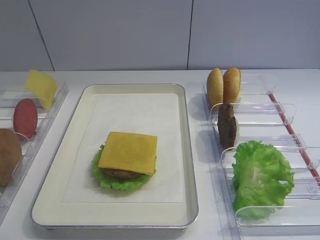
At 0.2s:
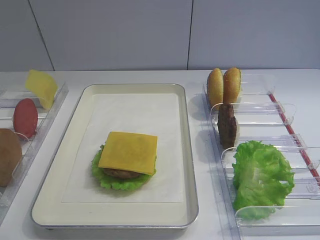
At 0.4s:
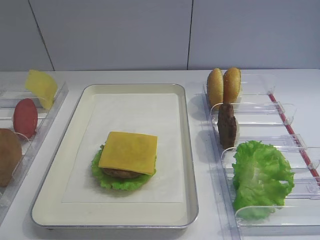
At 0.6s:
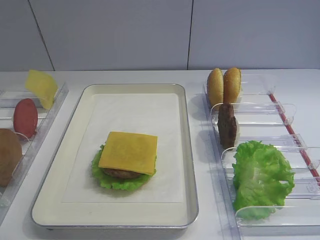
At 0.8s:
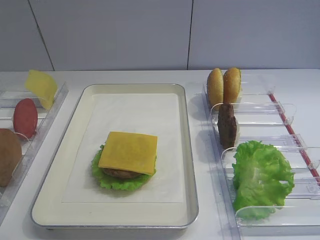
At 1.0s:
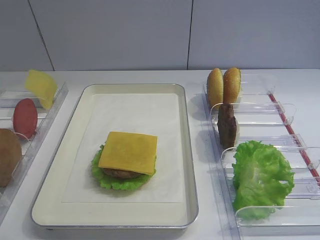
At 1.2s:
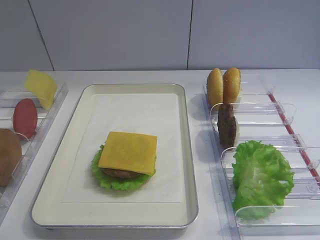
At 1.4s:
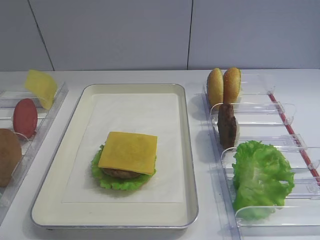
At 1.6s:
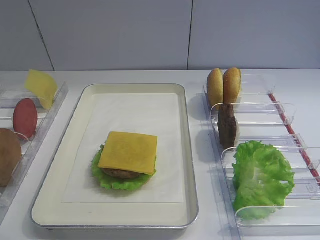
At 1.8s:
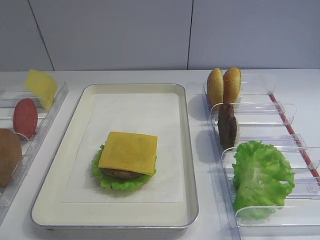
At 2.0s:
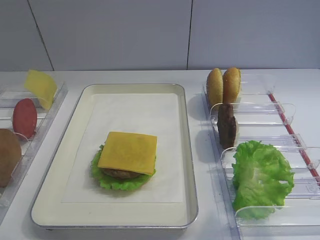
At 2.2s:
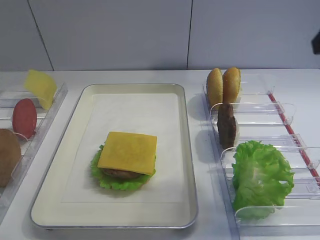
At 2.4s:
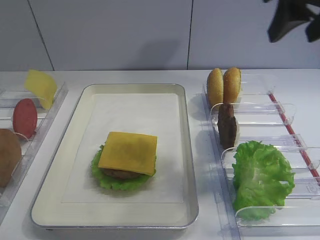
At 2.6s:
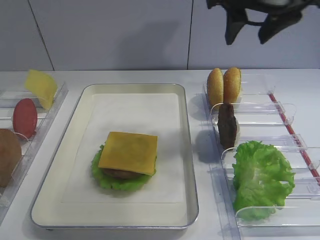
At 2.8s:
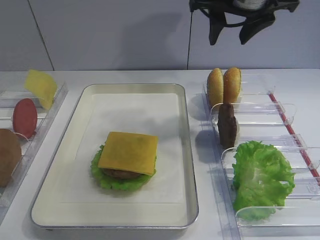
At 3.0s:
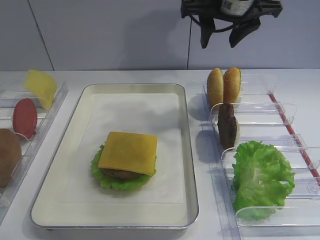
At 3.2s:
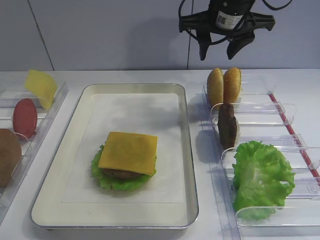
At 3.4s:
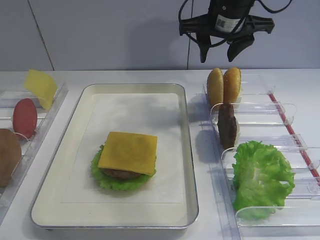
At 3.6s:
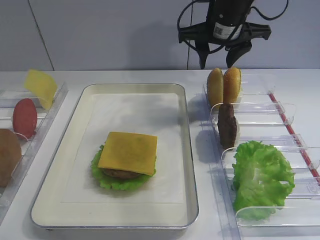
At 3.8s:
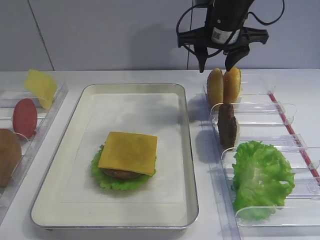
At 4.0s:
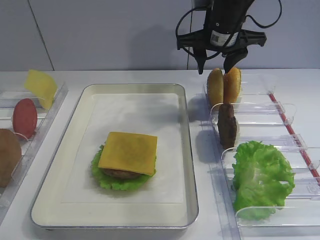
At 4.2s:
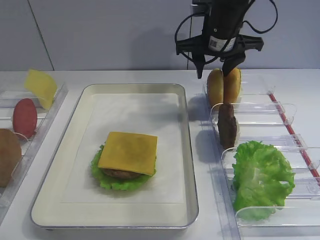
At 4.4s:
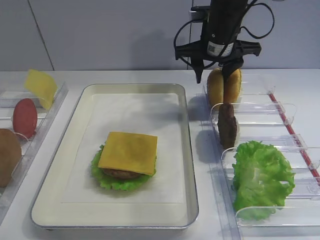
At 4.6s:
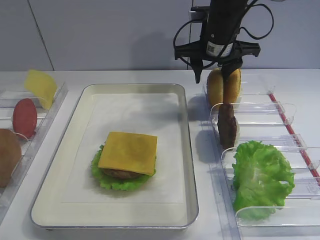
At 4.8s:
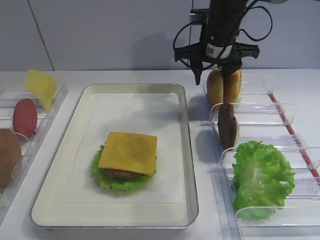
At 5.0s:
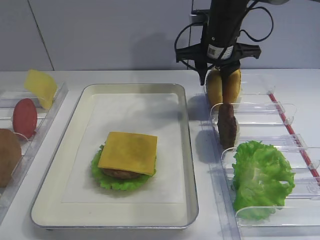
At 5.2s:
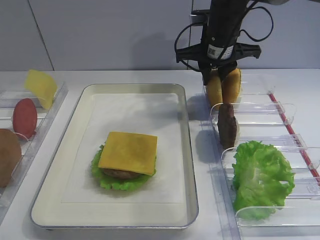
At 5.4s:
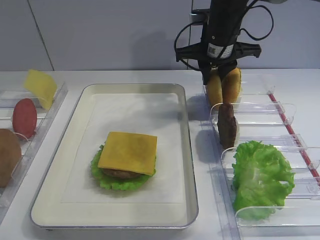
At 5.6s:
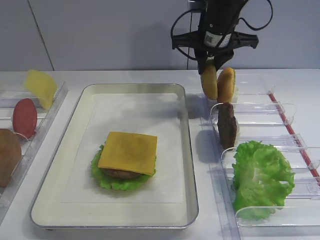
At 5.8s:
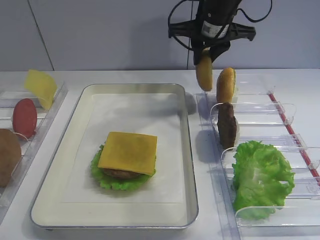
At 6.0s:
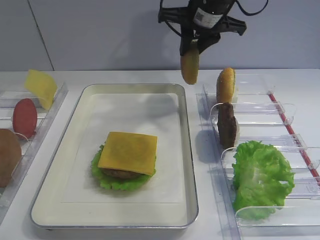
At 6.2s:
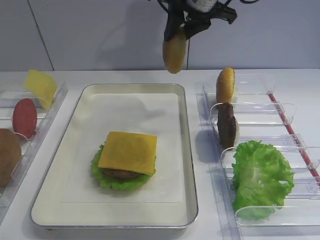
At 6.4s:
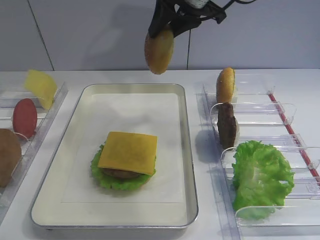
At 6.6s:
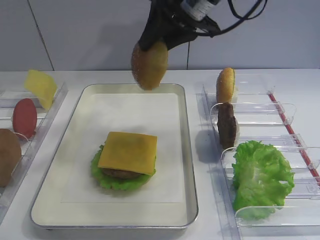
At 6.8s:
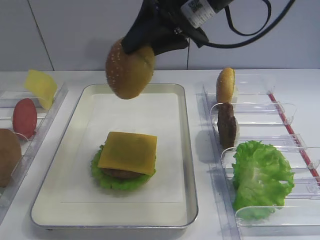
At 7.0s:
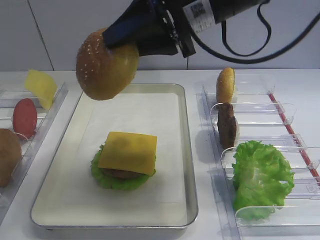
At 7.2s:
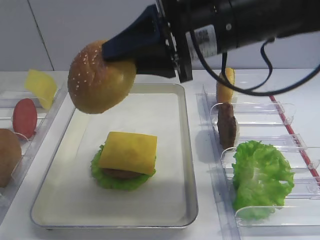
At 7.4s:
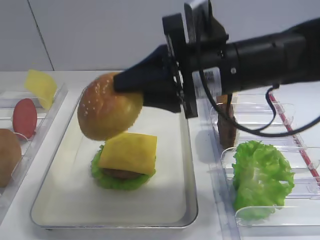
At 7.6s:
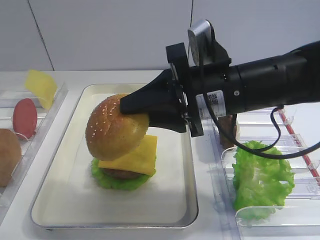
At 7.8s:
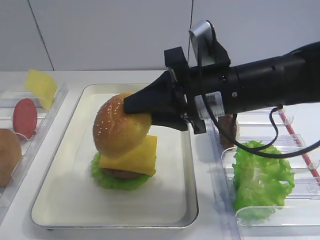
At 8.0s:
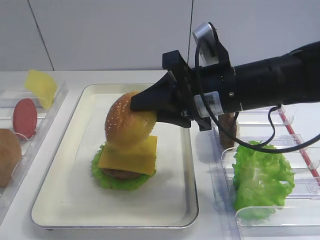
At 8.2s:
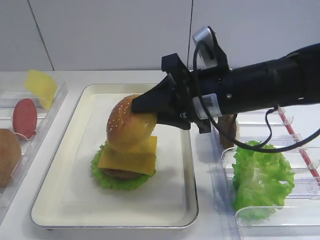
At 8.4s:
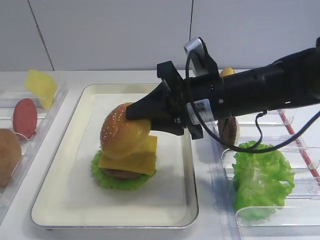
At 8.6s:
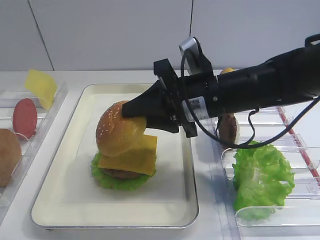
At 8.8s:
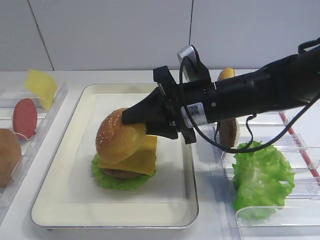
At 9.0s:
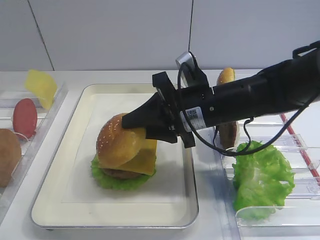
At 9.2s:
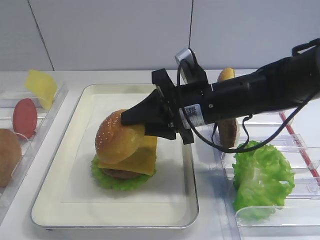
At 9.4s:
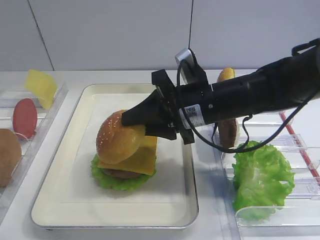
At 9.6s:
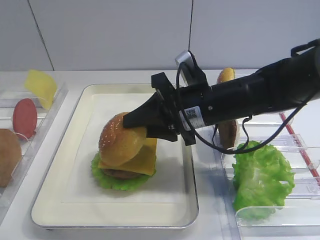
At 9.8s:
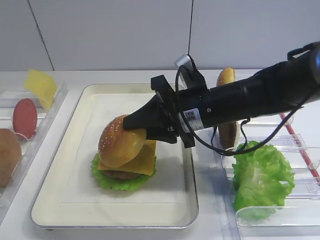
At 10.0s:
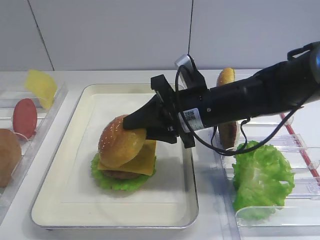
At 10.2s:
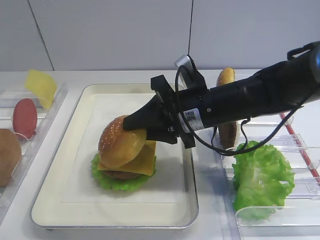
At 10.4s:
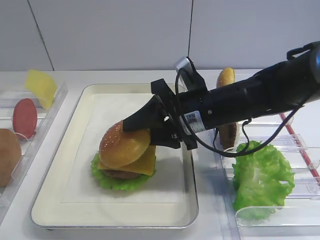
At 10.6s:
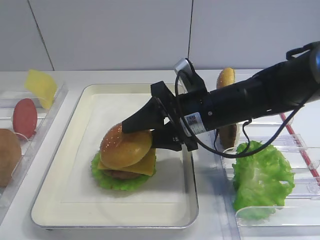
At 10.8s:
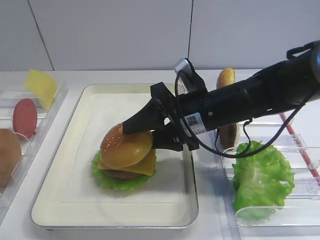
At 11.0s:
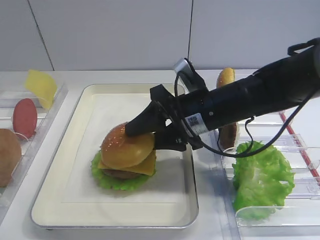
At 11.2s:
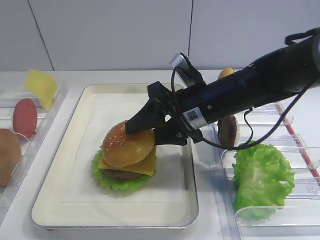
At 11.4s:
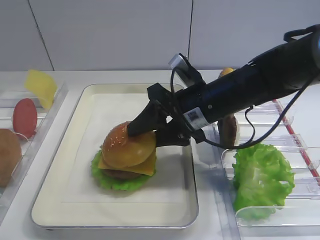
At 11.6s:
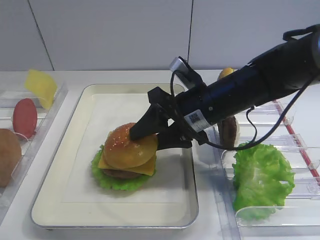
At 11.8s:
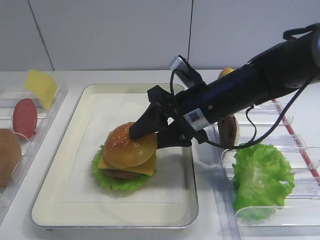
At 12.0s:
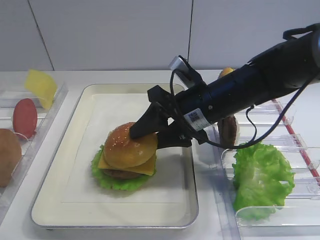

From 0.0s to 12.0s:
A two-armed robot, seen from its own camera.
Step, from 0.0s to 5.8s: Pick up the hamburger lid with the right gripper.
From 1.6s to 3.0s: The right gripper goes some 35 cm forward and to the left.
From 3.0s to 4.4s: The right gripper heads downward, covering roughly 10 cm.
From 4.4s to 6.0s: The right gripper closes up.
From 6.0s to 7.6s: The right gripper moves backward, about 20 cm.
From 7.6s to 9.0s: The right gripper is displaced downward by roughly 5 cm.
From 9.0s to 10.4s: Both grippers stay about where they are.
From 10.4s to 12.0s: The grippers move only a little.

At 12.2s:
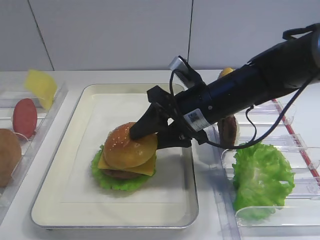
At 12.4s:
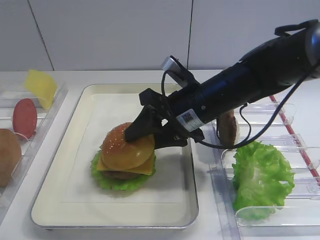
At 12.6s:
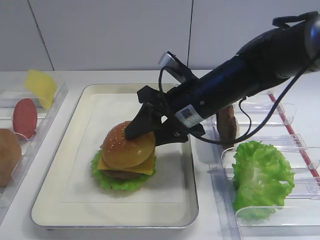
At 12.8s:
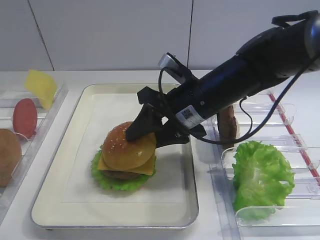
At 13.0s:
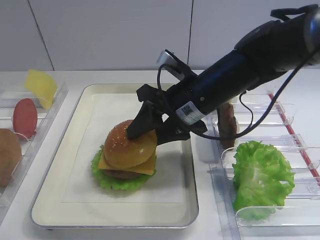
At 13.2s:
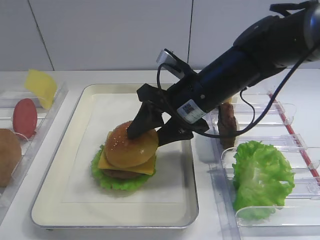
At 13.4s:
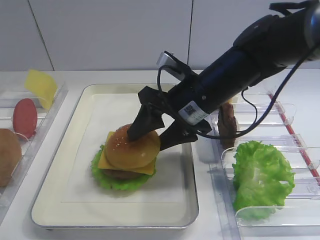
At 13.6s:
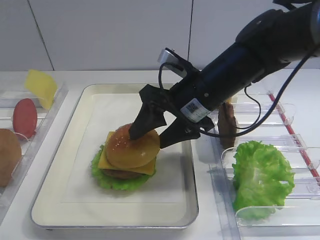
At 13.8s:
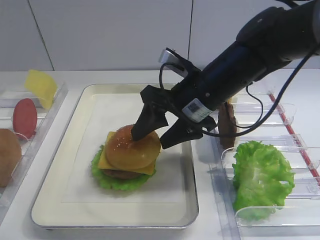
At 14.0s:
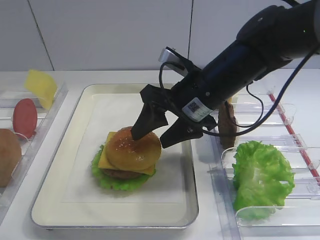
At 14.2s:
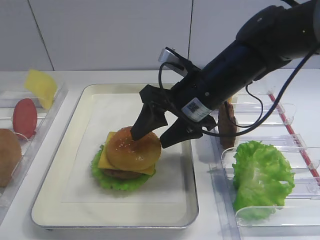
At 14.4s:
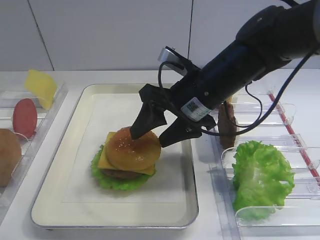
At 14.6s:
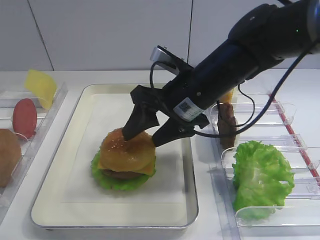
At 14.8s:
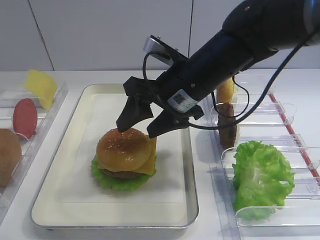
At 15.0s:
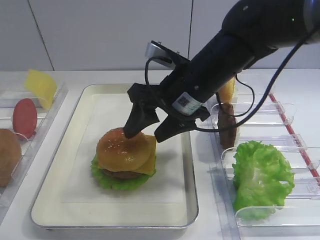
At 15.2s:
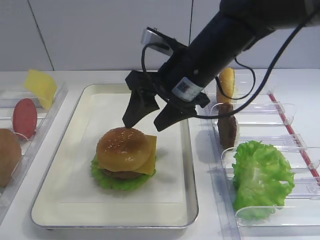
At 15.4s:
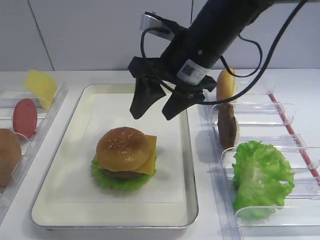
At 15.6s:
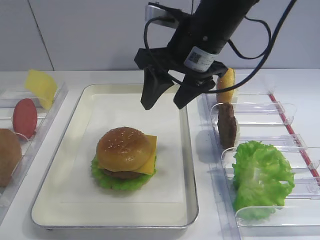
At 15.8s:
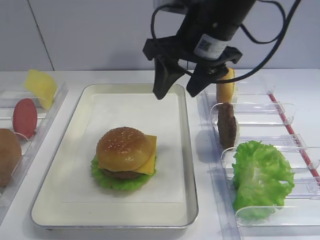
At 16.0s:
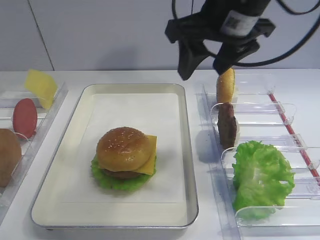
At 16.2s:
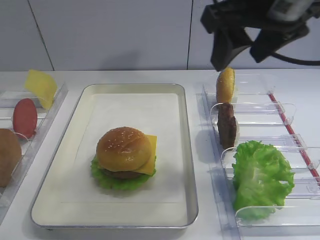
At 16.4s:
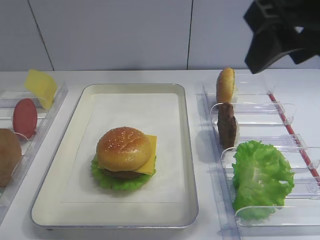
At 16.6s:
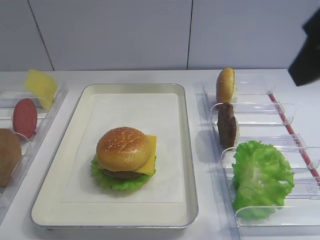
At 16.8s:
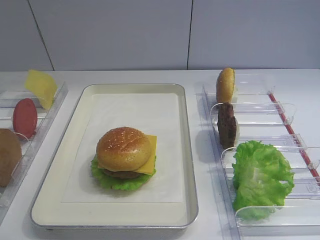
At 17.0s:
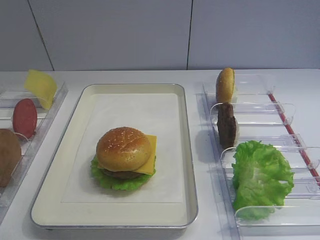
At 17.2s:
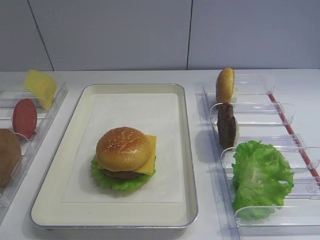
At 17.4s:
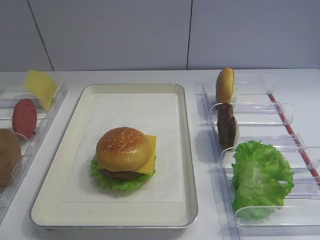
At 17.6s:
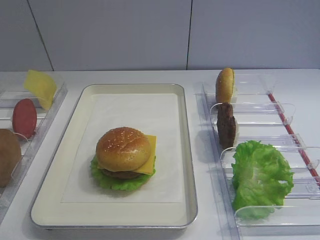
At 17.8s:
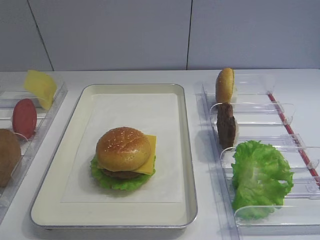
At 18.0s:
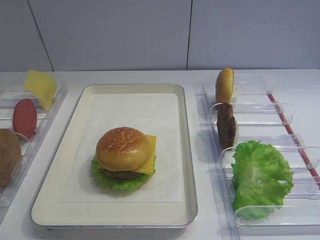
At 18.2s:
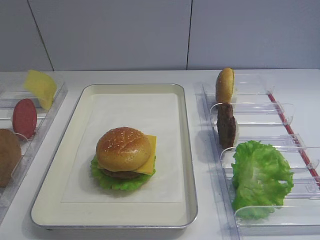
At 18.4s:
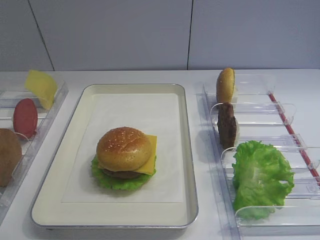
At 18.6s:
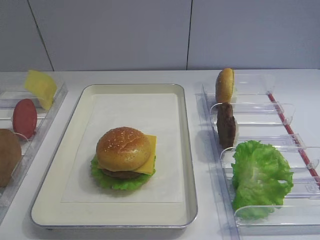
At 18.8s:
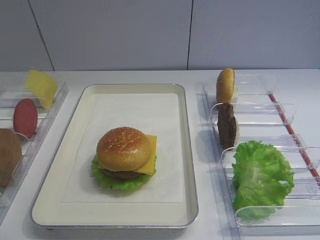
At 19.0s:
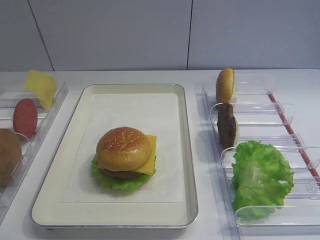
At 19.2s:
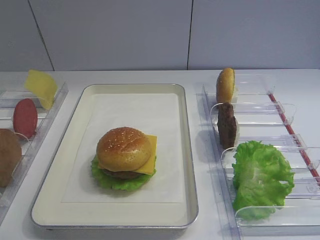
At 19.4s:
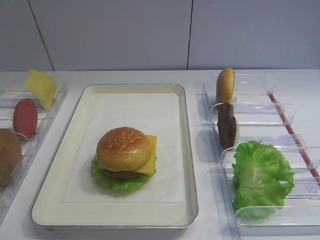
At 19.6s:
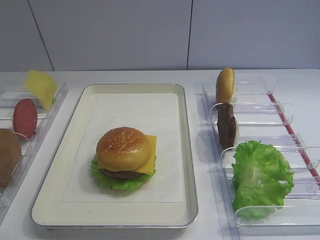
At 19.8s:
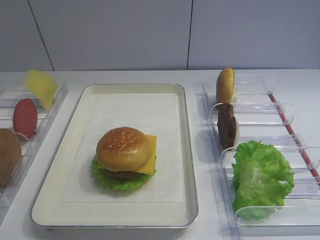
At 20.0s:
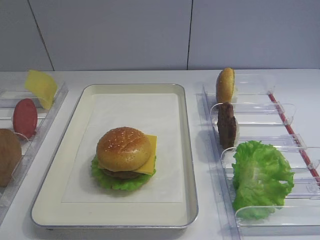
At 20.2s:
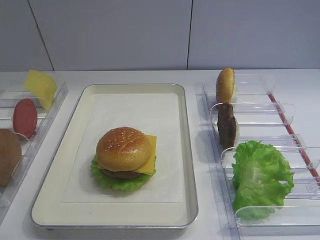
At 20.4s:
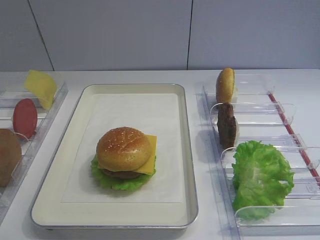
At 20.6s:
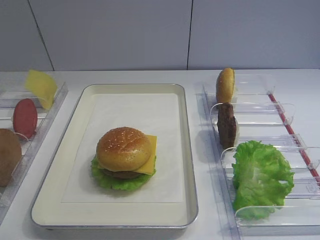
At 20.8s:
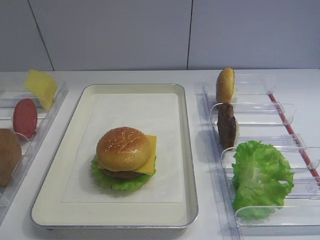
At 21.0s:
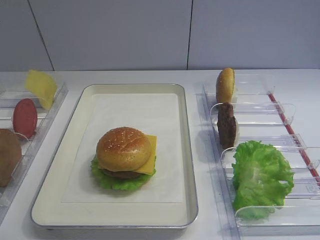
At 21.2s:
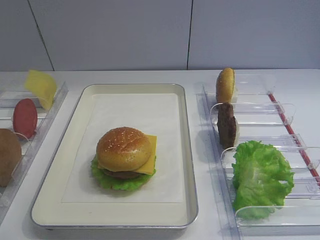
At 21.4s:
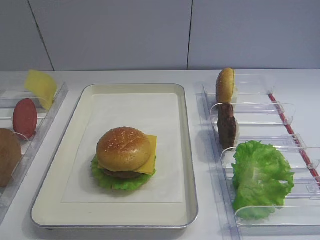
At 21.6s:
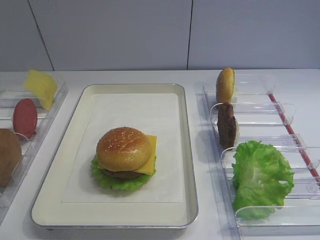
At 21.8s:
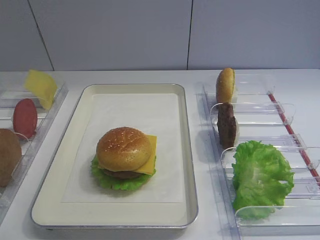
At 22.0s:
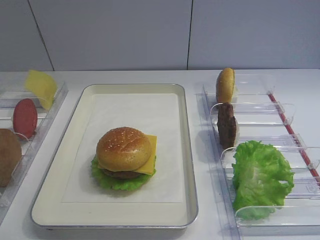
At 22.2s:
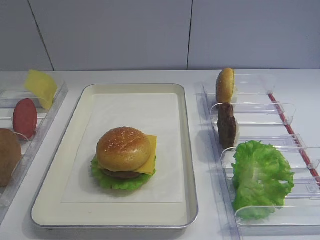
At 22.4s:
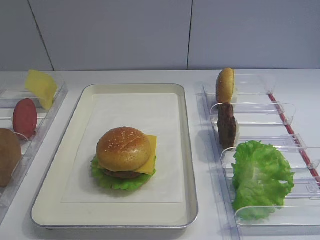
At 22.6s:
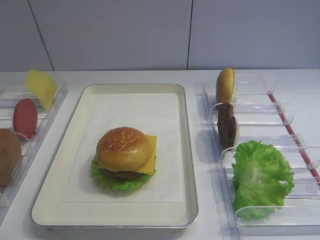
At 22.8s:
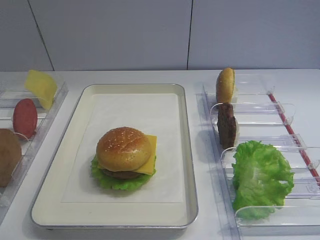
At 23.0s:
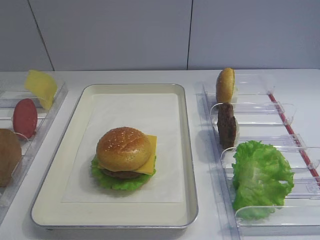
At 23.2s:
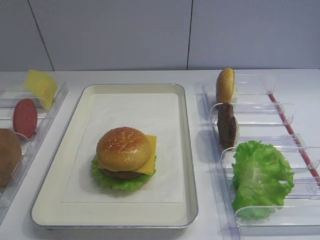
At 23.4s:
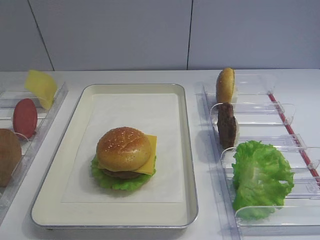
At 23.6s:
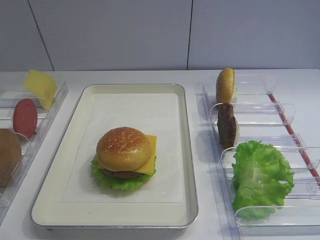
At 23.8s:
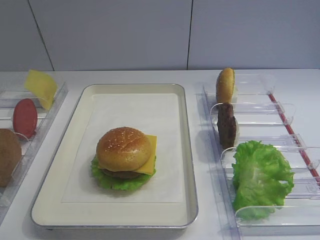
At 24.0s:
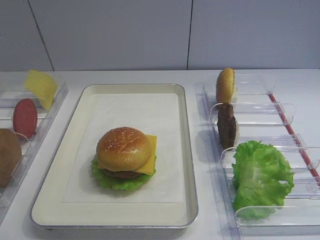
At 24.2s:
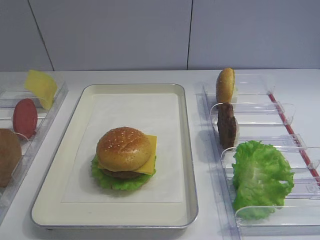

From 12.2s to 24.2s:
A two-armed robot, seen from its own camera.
Step, from 12.2s to 15.4s: Place the hamburger lid on the cheese slice with the right gripper.
From 12.2s to 13.8s: The right gripper opens up.
From 15.2s to 16.6s: The right gripper is displaced upward, backward and to the right by approximately 25 cm.
From 16.6s to 18.2s: The right gripper goes some 25 cm backward, downward and to the right.
From 18.2s to 24.2s: The two grippers keep their place.
